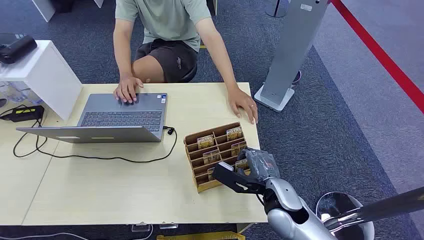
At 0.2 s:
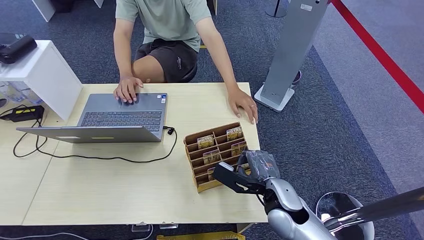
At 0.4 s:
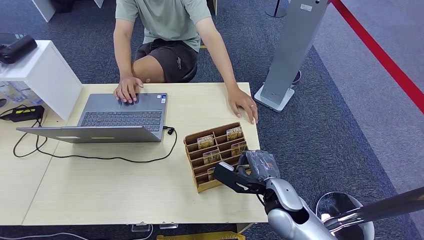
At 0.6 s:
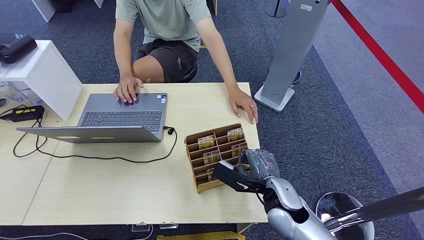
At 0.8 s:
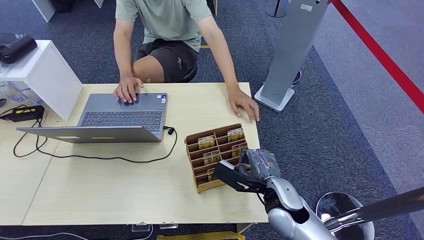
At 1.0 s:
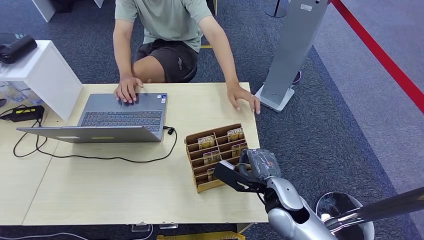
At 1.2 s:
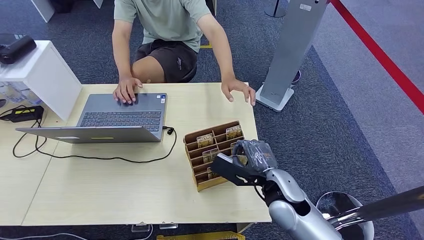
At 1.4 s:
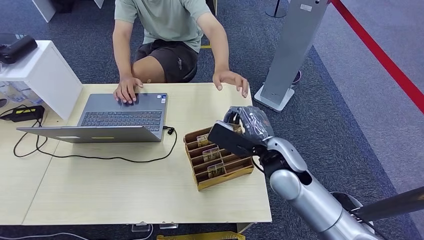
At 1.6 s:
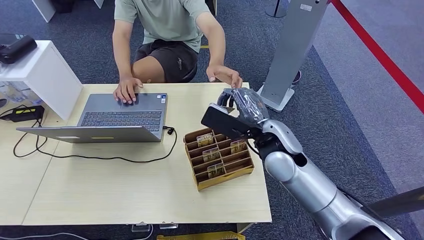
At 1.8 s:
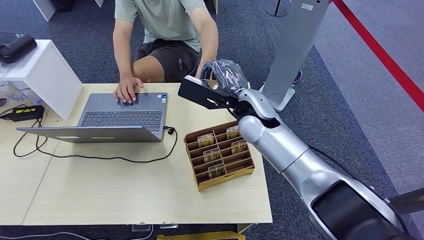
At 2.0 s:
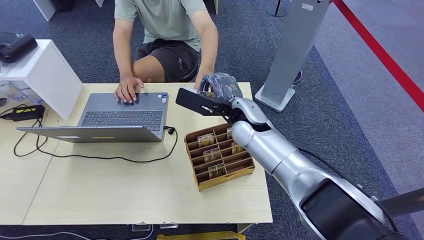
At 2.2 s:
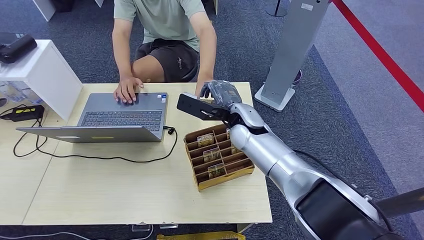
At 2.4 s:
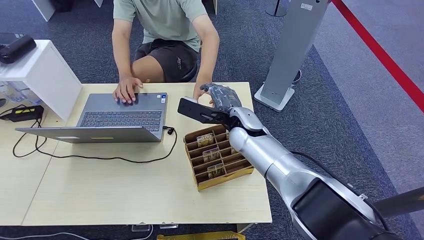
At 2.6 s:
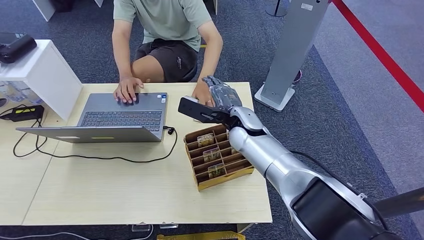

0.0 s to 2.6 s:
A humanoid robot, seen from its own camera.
Step, 0.0 to 1.6 s: Pick up the key card from the card box.
Step, 1.8 to 2.6 s: Hand the key card to the target.
1.2 to 2.6 s: The right hand goes roughly 20 cm forward and to the left.
